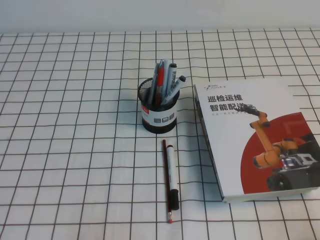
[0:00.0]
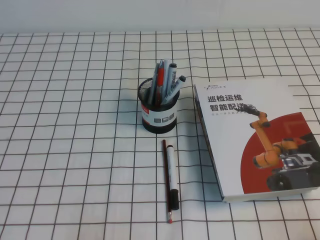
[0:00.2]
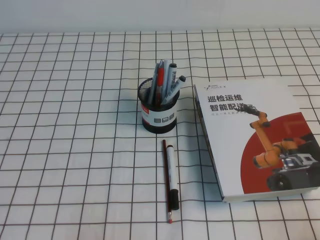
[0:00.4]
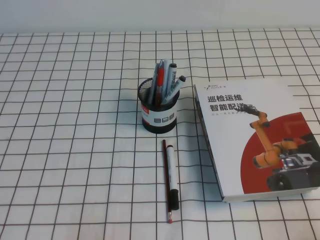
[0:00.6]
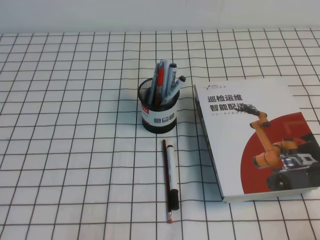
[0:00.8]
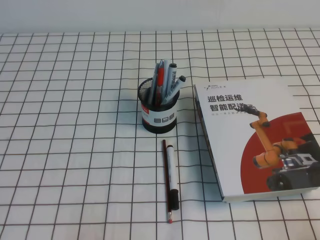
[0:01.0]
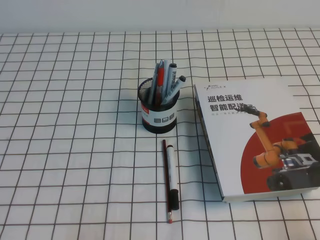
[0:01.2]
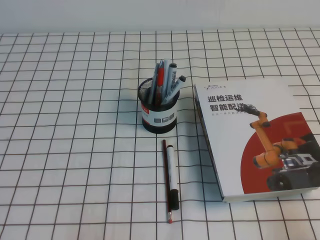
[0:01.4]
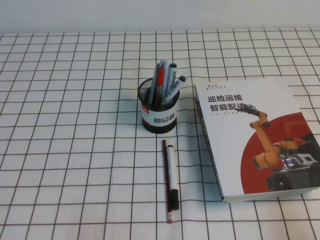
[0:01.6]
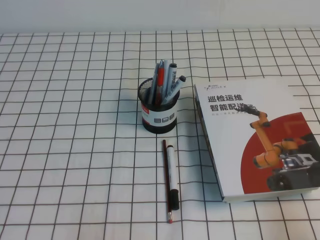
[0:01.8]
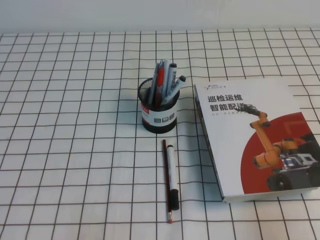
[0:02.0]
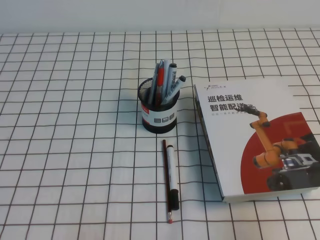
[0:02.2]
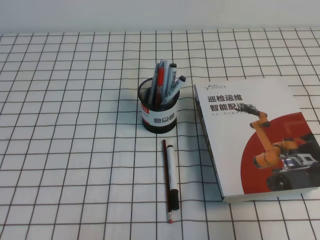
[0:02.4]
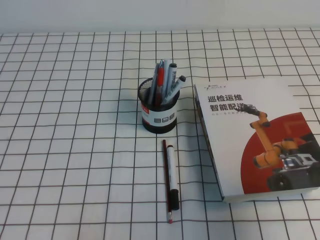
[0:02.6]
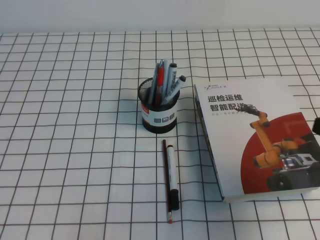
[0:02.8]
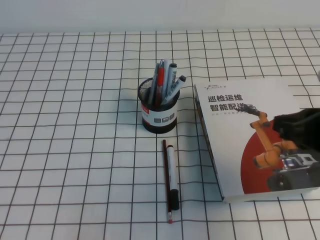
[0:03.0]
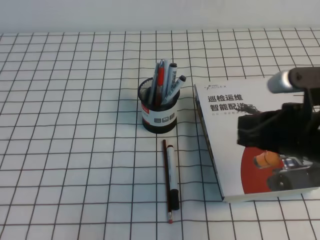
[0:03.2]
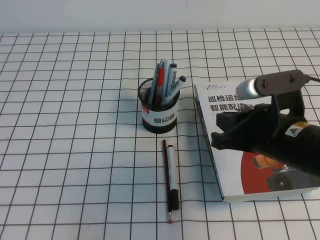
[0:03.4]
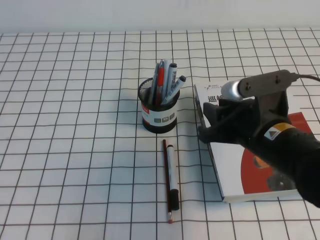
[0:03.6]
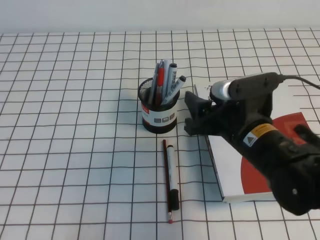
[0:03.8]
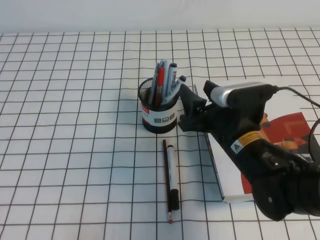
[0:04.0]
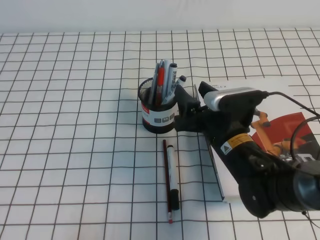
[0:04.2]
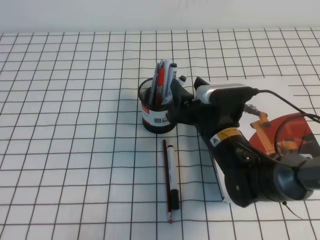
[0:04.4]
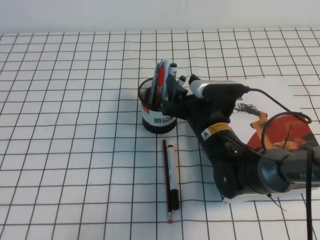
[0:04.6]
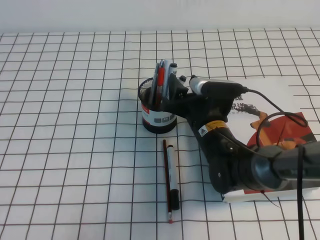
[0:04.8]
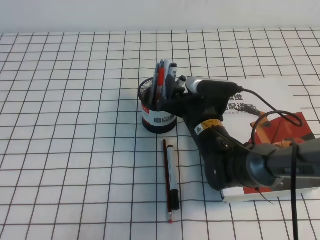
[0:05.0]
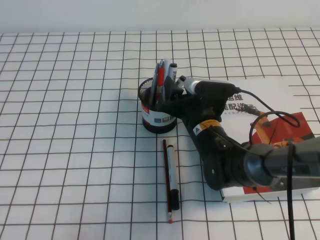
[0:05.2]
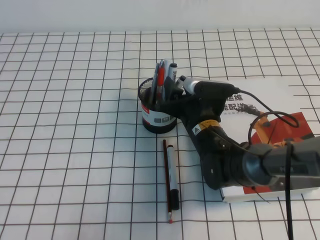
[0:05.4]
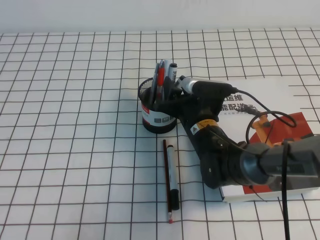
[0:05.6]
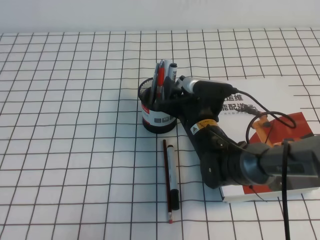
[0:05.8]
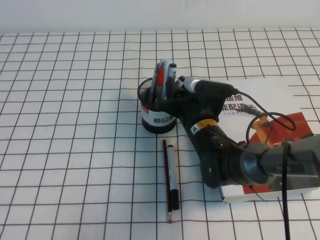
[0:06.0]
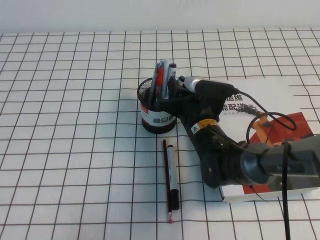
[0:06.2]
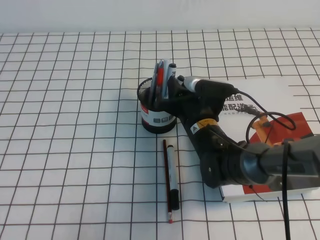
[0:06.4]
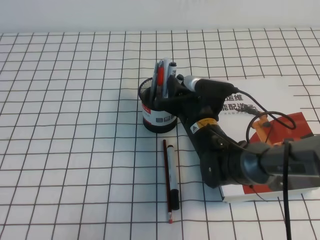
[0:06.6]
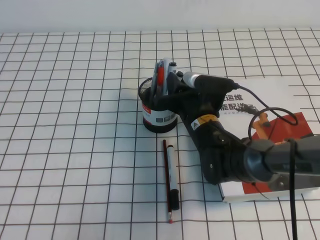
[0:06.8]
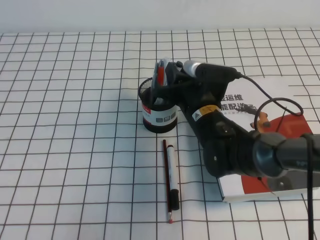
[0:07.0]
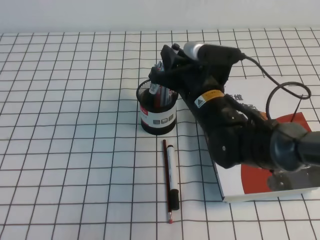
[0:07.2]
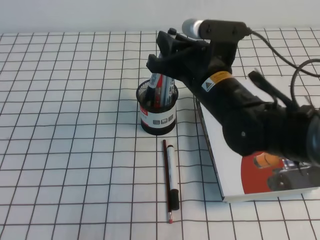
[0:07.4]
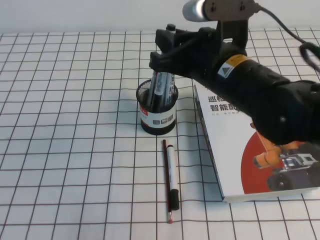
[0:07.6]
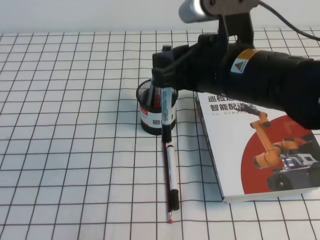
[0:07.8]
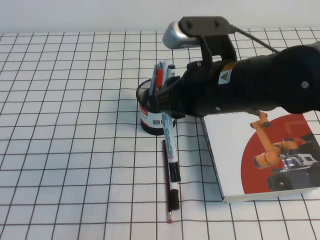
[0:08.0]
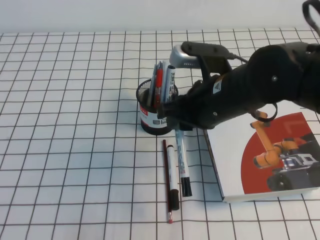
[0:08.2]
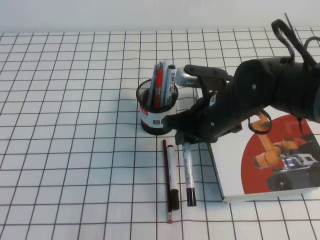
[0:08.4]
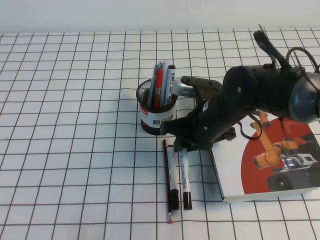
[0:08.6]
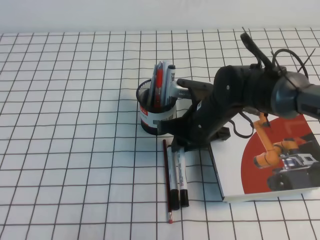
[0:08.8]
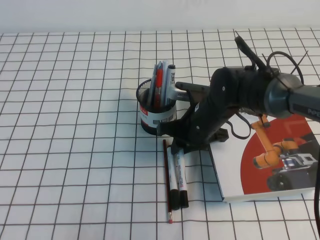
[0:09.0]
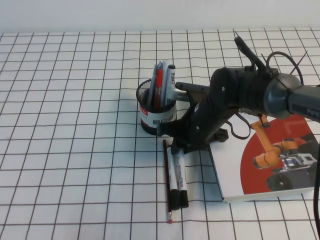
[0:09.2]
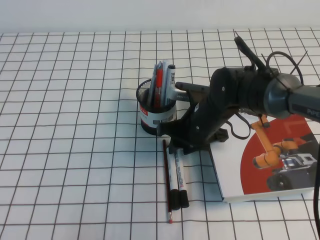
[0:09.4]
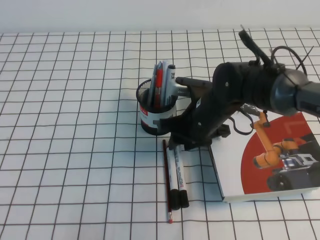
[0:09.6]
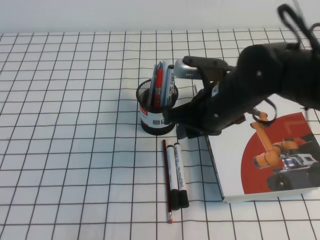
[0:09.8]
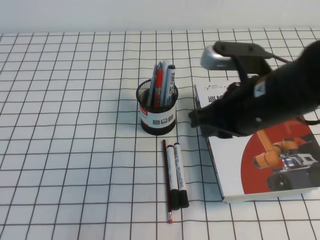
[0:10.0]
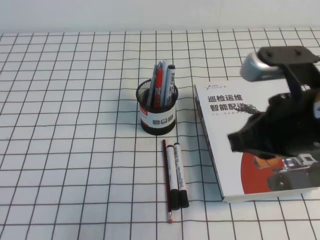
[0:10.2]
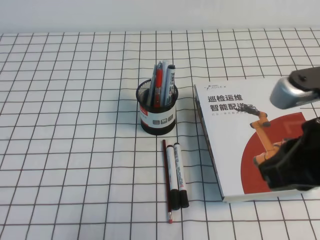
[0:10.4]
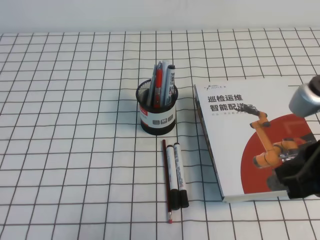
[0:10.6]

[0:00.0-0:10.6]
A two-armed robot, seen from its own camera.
0:01.6 to 0:03.0: The right gripper shifts roughly 20 cm forward, upward and to the left.
0:03.0 to 0:04.6: The right gripper travels to the left, forward and downward by roughly 25 cm, and opens.
0:04.6 to 0:06.0: The right gripper closes its fingers.
0:06.0 to 0:07.6: The right gripper travels upward by about 15 cm.
0:07.6 to 0:09.0: The right gripper goes roughly 15 cm downward and forward.
0:09.0 to 0:10.6: The right gripper is displaced backward, upward and to the right by approximately 30 cm.

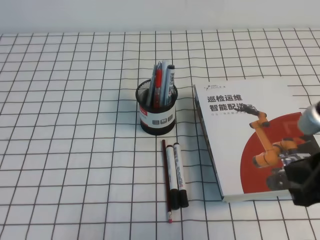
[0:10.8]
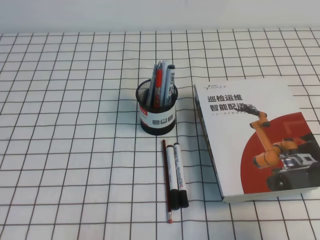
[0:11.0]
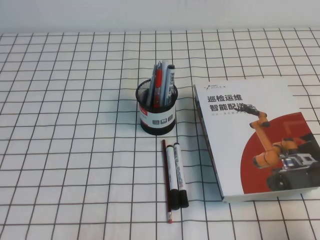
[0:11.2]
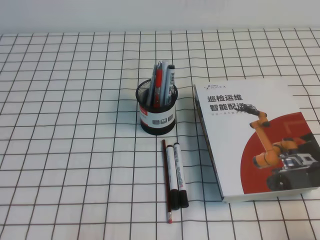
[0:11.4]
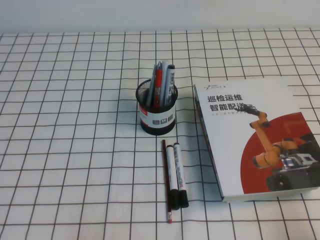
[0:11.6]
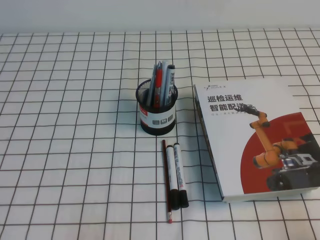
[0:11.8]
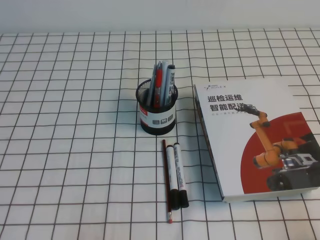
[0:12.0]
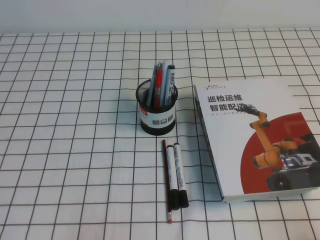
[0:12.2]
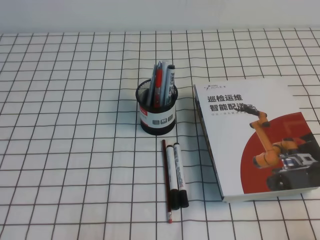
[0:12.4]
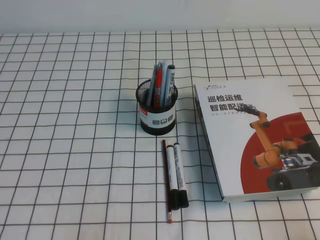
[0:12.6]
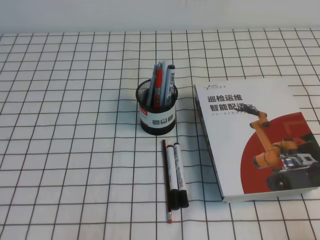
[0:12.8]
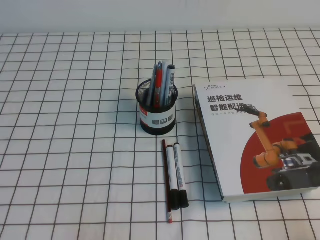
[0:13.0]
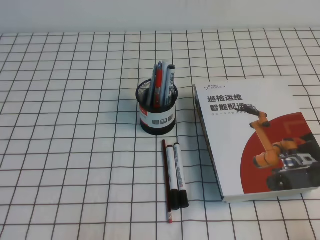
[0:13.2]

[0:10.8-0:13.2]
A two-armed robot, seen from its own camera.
Step, 0:10.8 to 0:13.2: Pick up the pen from the pen holder.
0:10.8 to 0:12.0: The right gripper shifts approximately 20 cm downward, to the right and backward.

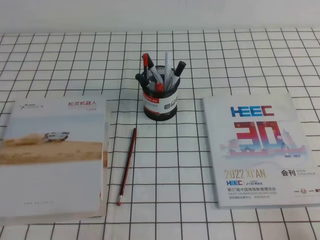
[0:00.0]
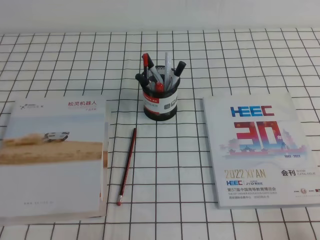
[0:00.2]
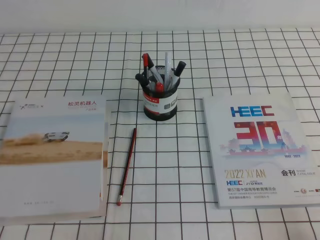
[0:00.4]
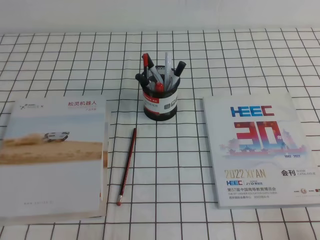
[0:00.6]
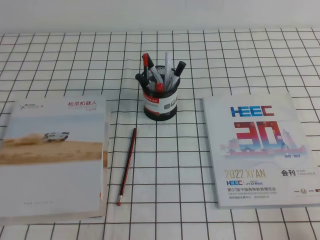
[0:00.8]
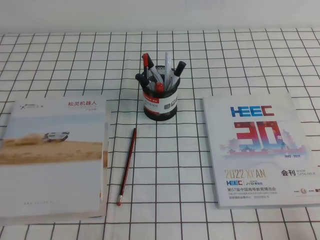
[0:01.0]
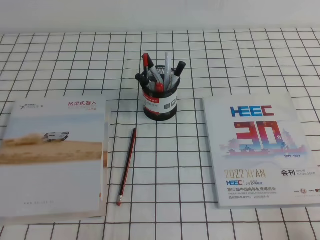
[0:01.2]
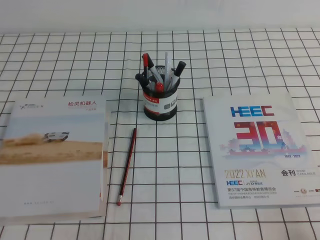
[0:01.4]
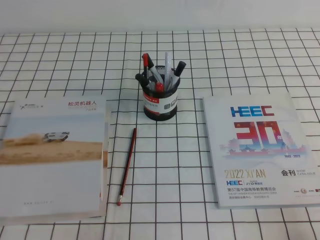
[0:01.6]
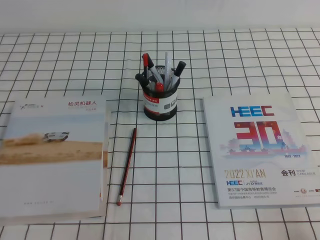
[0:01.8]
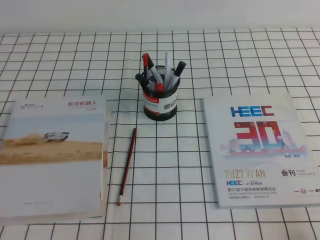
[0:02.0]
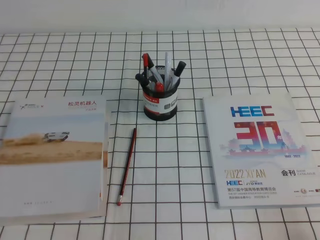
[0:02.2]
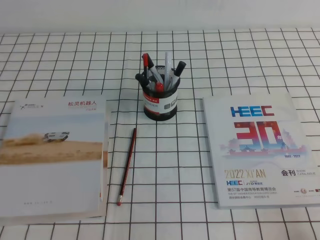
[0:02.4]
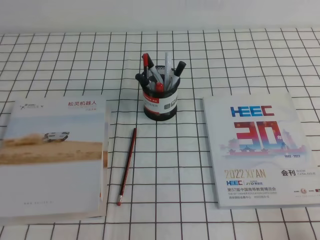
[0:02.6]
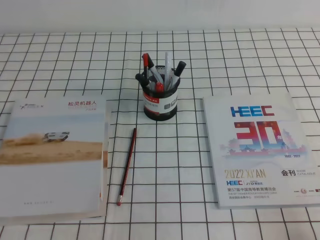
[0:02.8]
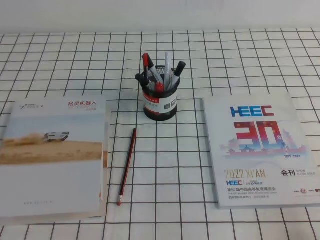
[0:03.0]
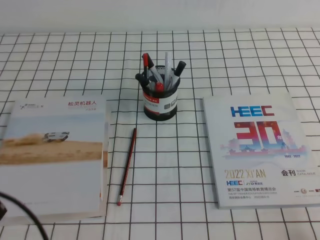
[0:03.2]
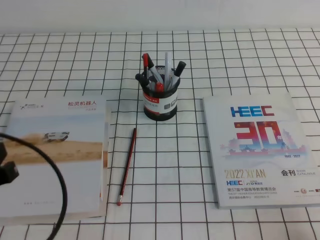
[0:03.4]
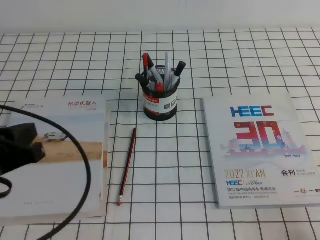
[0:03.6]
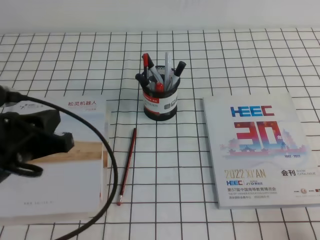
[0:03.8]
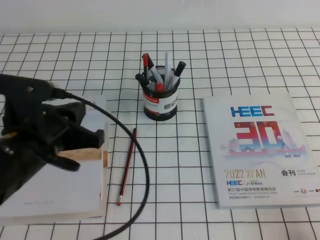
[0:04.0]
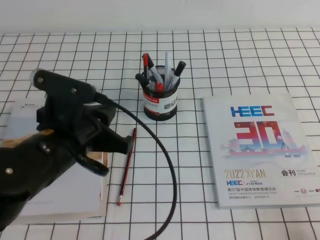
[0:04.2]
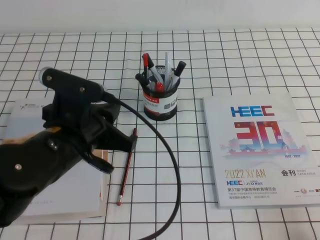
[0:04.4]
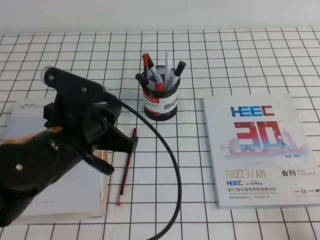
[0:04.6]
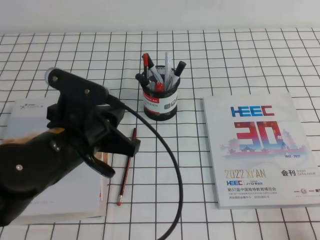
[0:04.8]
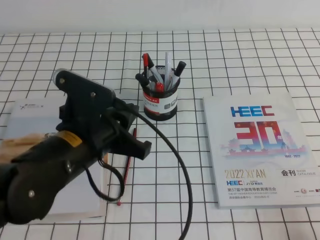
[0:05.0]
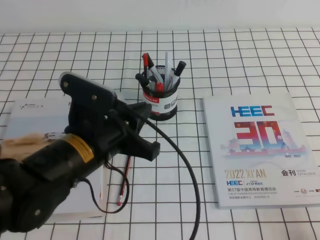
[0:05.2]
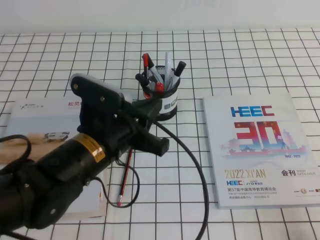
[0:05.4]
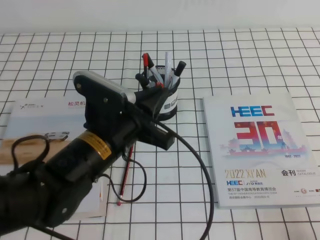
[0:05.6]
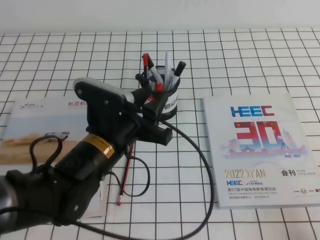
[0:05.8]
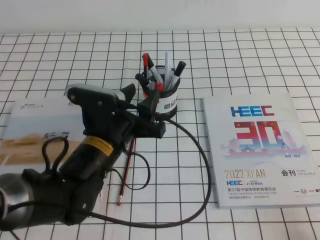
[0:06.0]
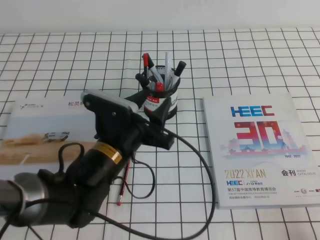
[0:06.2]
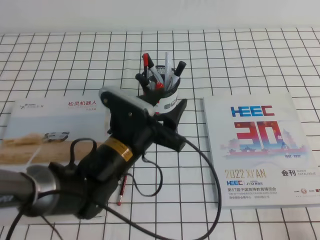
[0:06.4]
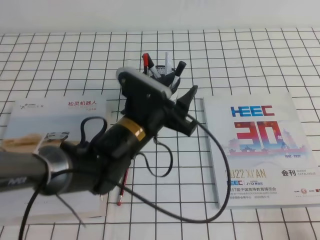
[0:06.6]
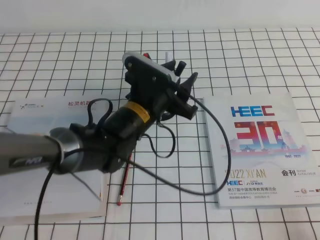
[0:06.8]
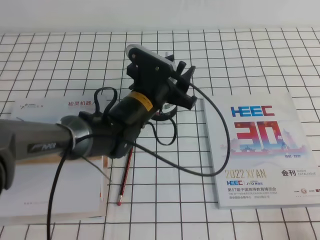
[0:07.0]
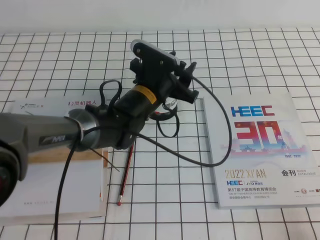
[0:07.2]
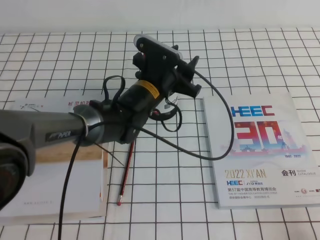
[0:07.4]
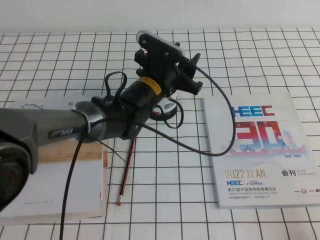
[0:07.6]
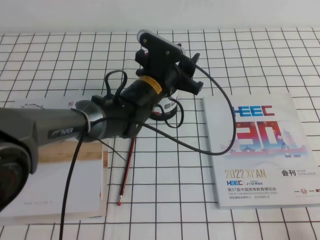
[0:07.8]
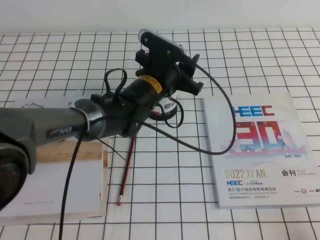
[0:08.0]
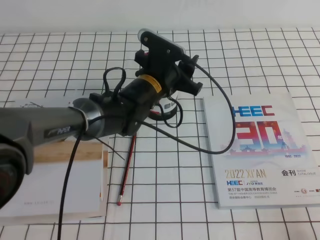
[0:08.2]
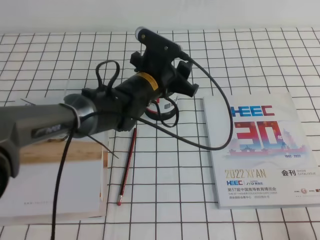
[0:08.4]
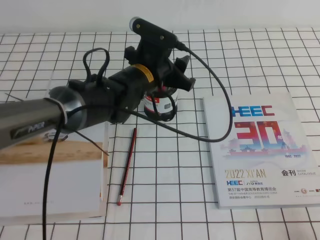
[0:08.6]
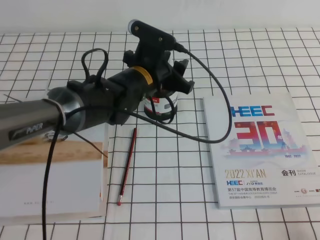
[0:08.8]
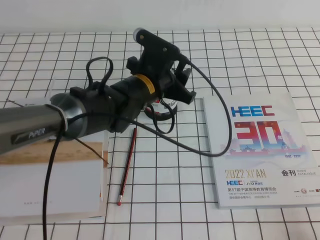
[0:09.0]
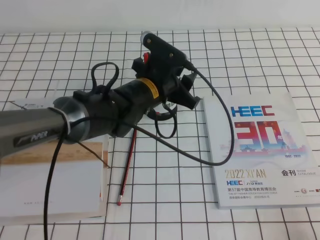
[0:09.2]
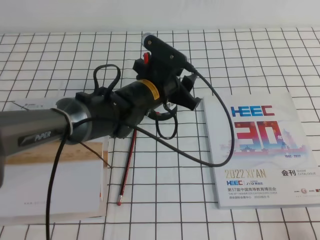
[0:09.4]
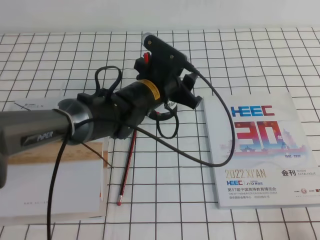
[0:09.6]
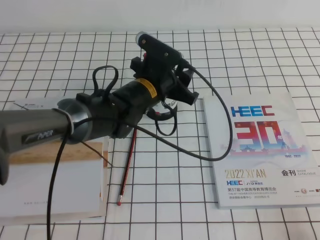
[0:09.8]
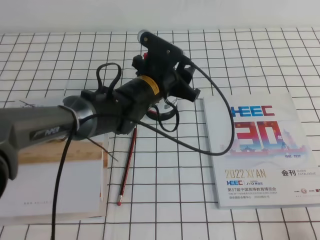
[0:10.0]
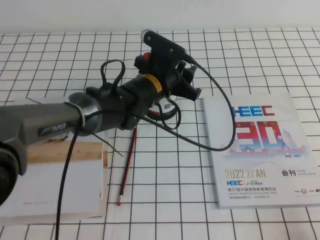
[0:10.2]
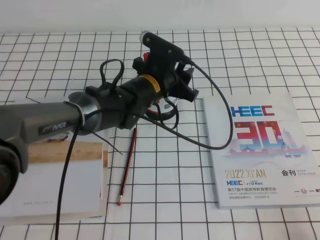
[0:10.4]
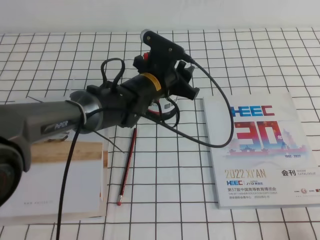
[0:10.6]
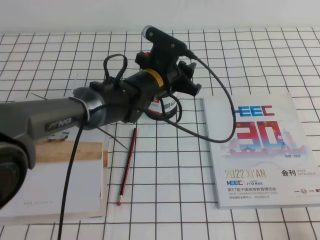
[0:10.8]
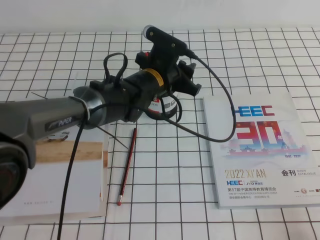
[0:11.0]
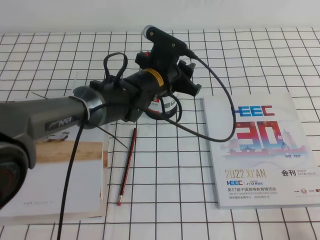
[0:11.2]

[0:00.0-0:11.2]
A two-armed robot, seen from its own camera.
0:00.0 to 0:01.6: Both grippers stay put.
0:01.6 to 0:03.2: The left gripper travels upward by approximately 10 cm.
0:03.2 to 0:04.8: The left gripper moves to the right and forward, some 20 cm.
0:04.8 to 0:06.4: The left gripper travels downward and to the right by approximately 10 cm, and opens.
0:06.4 to 0:08.0: The left gripper is displaced forward and to the right by about 15 cm.
0:08.0 to 0:11.2: The grippers make only small movements.
